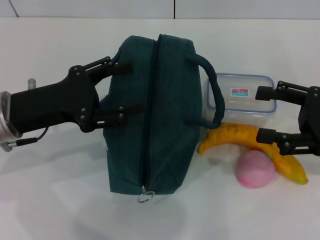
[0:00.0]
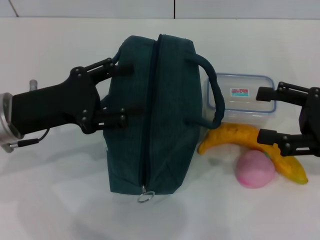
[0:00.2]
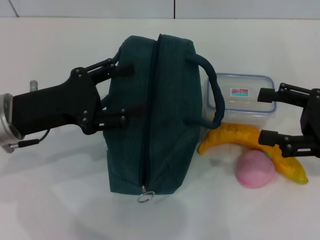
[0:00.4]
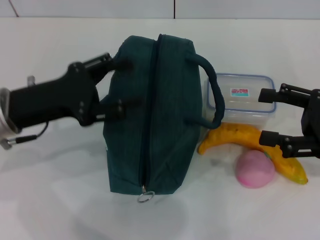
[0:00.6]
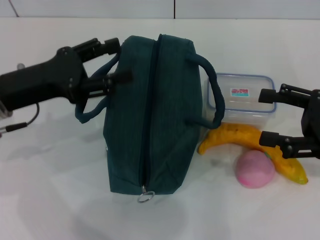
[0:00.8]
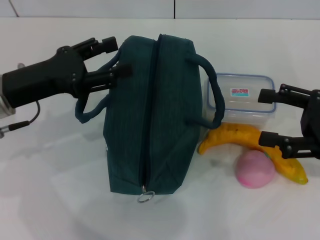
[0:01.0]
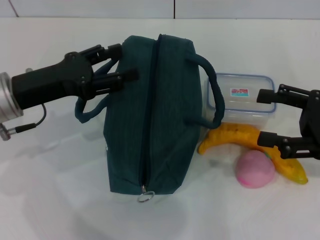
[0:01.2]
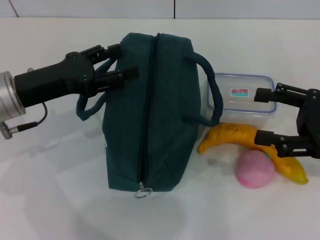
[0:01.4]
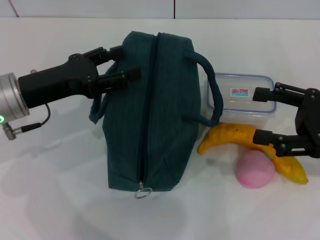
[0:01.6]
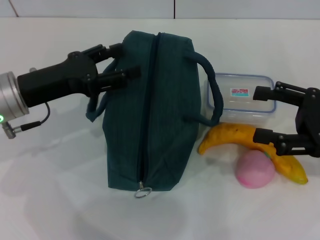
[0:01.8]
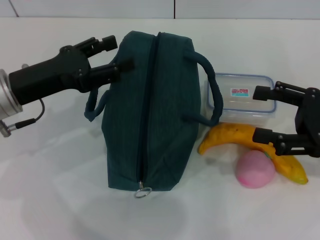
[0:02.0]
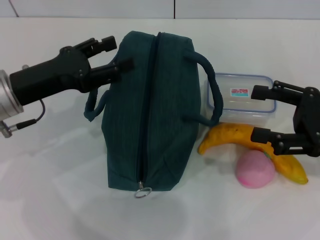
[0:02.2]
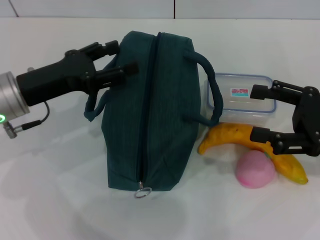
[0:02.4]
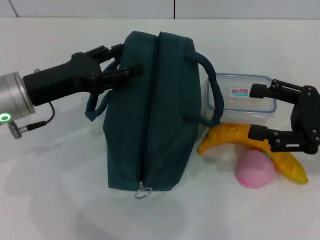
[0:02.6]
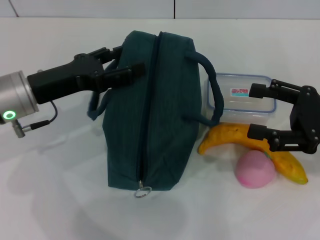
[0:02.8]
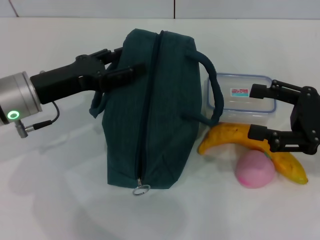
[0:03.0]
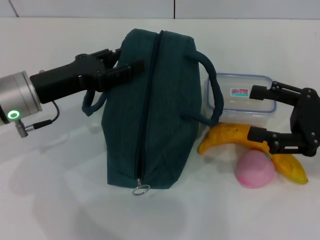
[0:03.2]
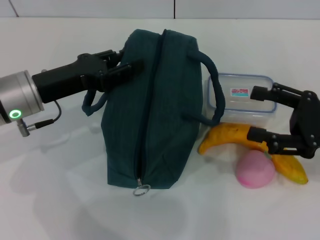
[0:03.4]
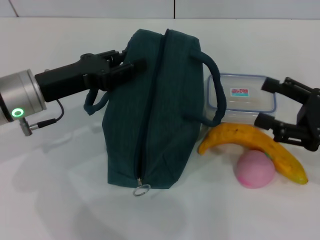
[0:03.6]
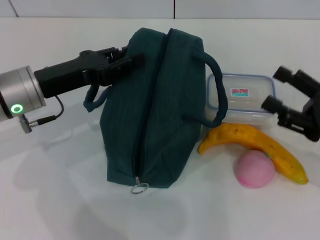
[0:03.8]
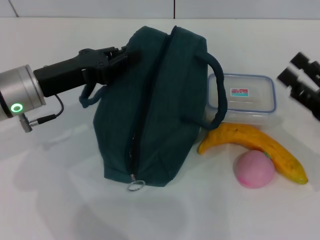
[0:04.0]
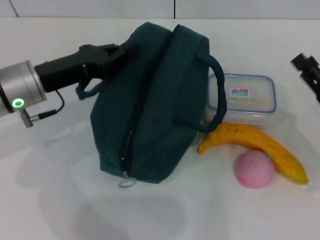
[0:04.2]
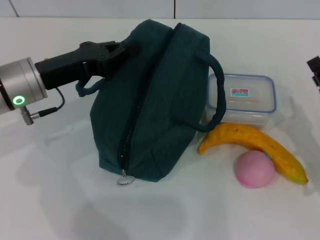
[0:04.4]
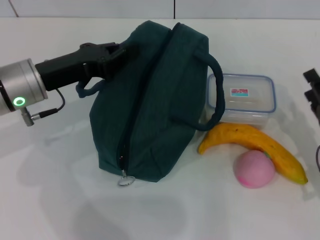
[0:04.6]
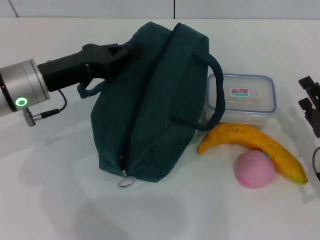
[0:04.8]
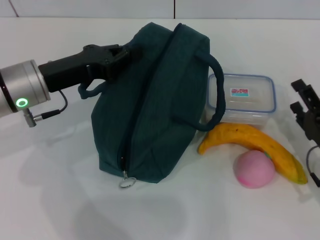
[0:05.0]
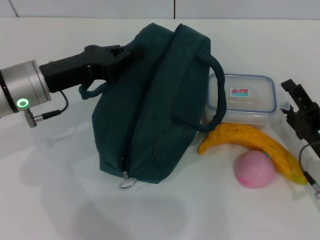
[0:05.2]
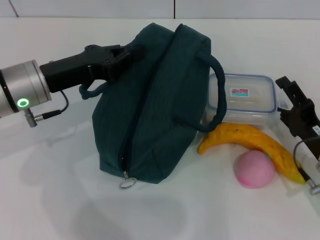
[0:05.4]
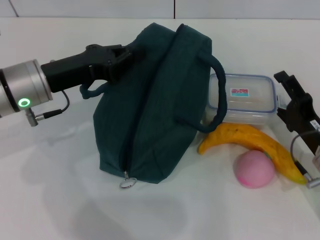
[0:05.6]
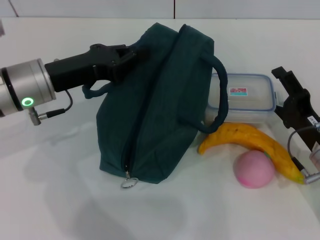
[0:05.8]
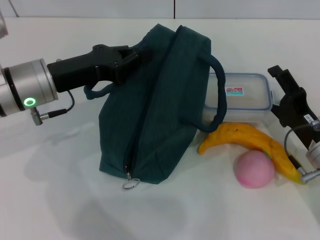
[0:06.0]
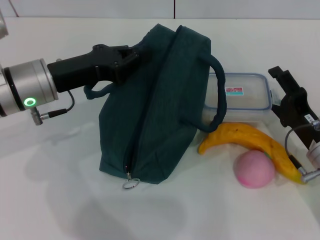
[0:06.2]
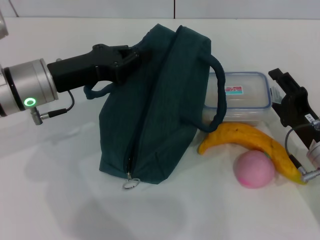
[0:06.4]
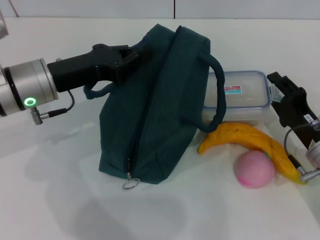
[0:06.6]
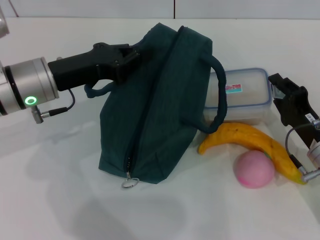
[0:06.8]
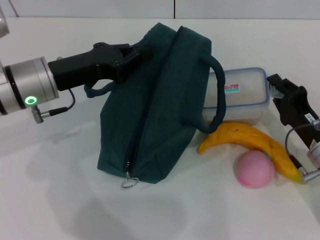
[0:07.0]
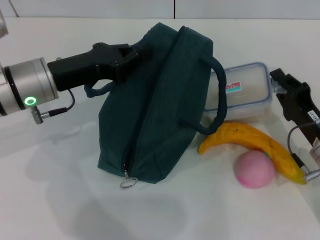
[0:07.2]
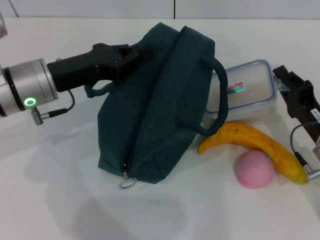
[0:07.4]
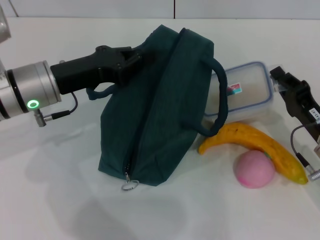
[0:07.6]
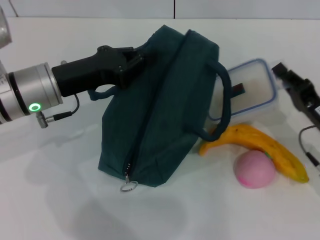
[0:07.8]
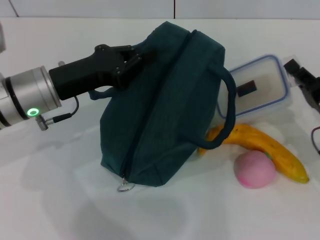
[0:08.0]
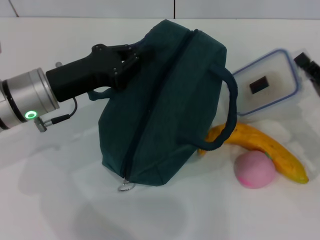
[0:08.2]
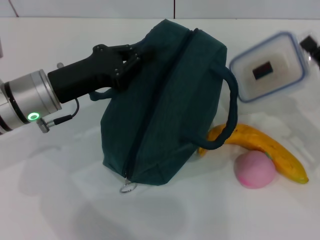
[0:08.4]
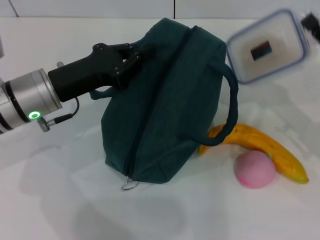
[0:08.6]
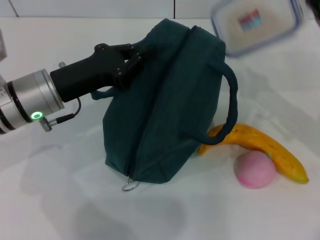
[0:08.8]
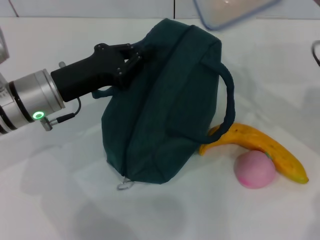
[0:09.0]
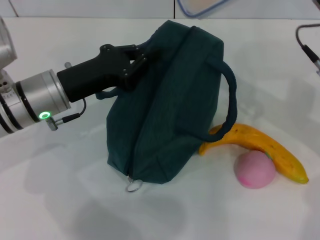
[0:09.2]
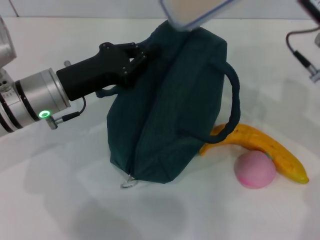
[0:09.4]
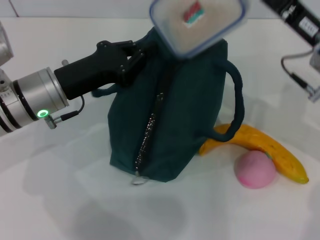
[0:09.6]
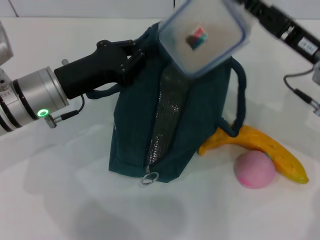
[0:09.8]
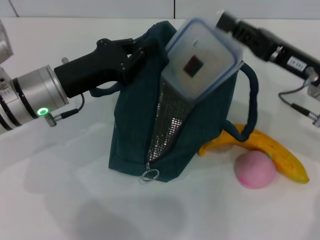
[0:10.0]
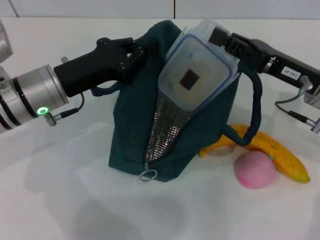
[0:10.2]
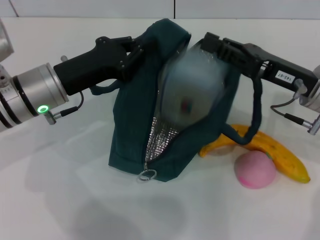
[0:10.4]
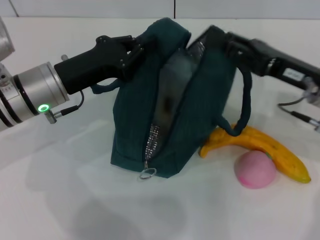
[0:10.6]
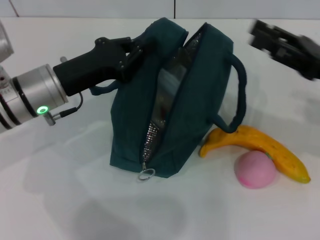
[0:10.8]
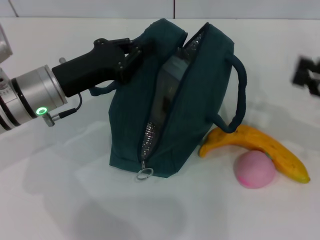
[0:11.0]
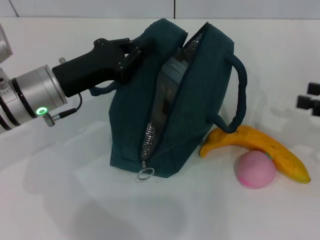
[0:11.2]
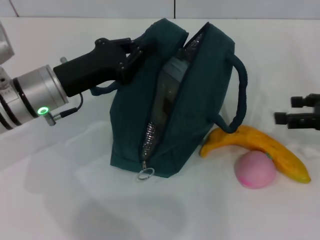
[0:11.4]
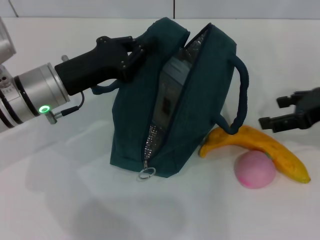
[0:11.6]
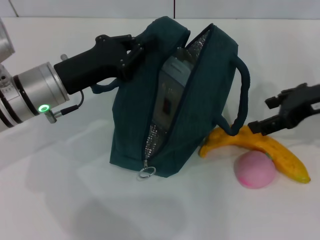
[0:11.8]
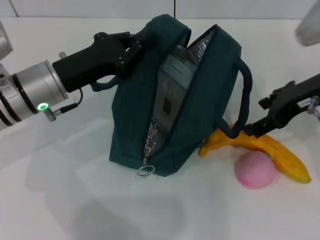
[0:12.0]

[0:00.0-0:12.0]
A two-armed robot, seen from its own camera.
Step, 0:00.0 to 0:04.2: Hold the lunch bag with your left hand.
Step, 0:04.6 to 0:07.0: Pick up the lunch box with your right hand.
Step, 0:07.2 to 0:10.6: Place the lunch box into the lunch bag with your right hand.
0:00.0 to 0:01.6: The grippers move only a little.
0:01.6 to 0:03.0: The grippers stay close to where they were, moving slightly.
0:03.0 to 0:04.4: The left gripper closes. The right gripper moves downward, roughly 10 cm.
0:06.0 to 0:07.6: The right gripper closes its fingers.
0:07.6 to 0:09.0: The right gripper goes roughly 15 cm upward and forward.
0:10.4 to 0:12.0: The right gripper travels upward by roughly 5 cm, travels to the right and back again, some 15 cm each way, and opens.

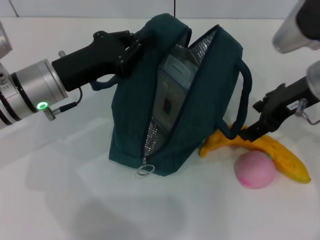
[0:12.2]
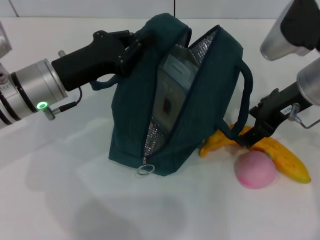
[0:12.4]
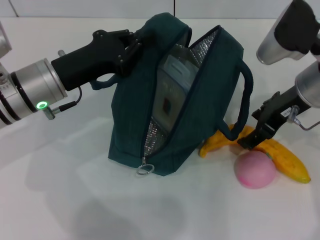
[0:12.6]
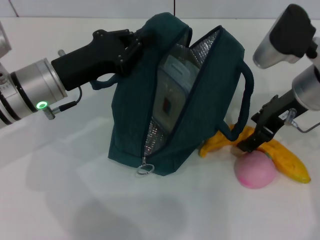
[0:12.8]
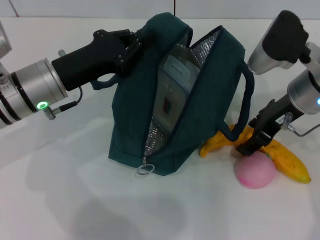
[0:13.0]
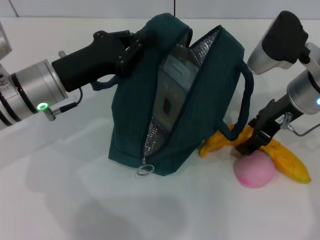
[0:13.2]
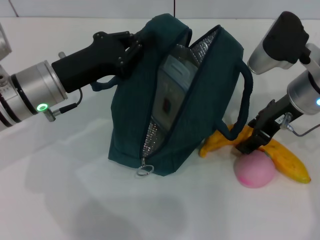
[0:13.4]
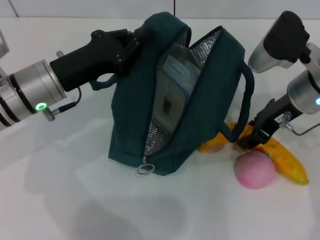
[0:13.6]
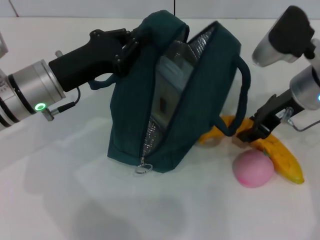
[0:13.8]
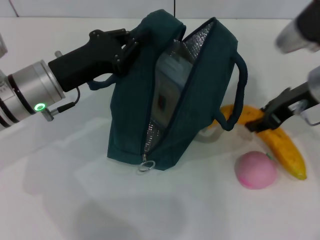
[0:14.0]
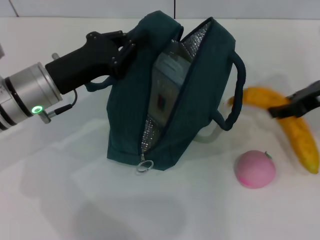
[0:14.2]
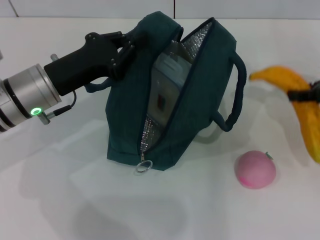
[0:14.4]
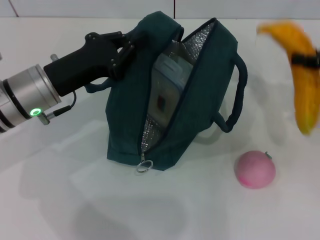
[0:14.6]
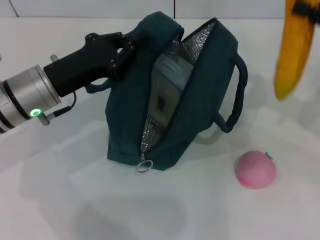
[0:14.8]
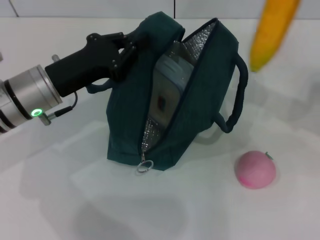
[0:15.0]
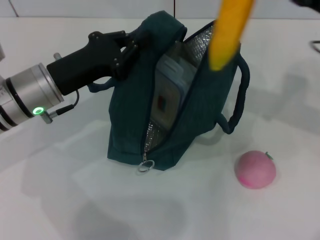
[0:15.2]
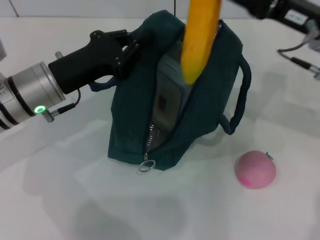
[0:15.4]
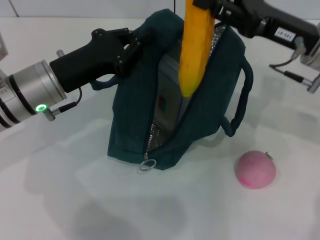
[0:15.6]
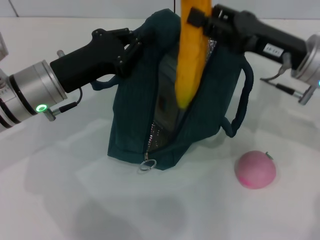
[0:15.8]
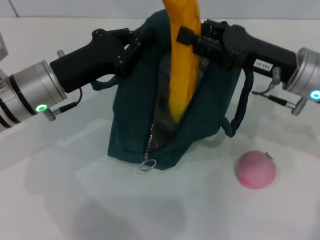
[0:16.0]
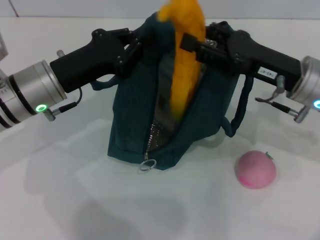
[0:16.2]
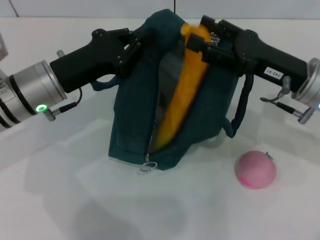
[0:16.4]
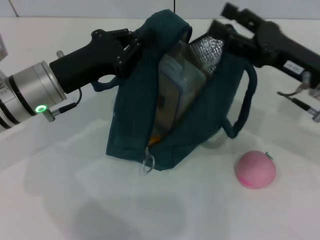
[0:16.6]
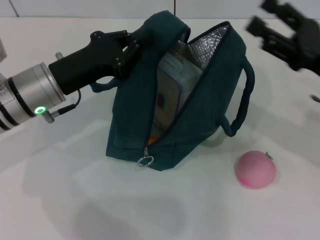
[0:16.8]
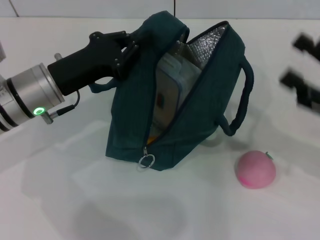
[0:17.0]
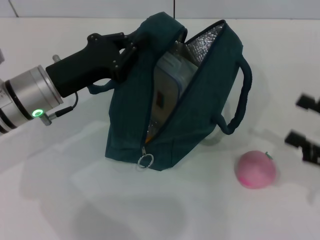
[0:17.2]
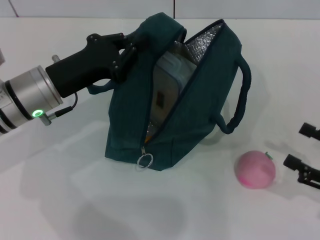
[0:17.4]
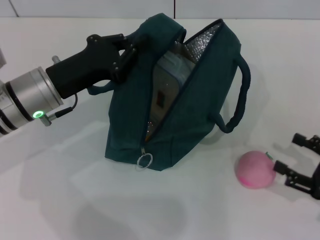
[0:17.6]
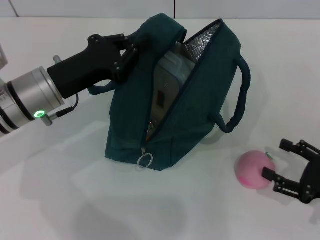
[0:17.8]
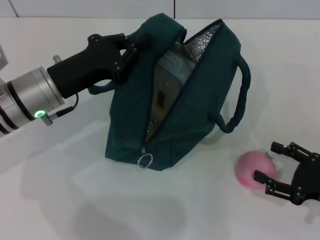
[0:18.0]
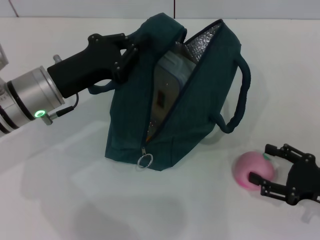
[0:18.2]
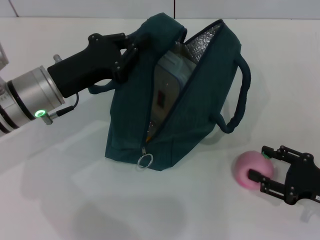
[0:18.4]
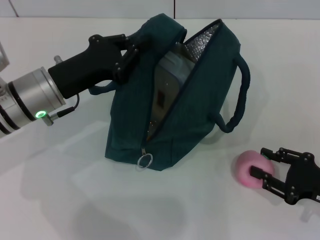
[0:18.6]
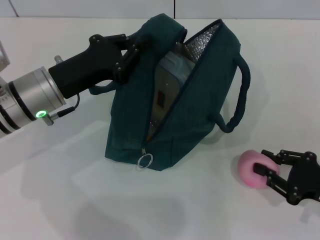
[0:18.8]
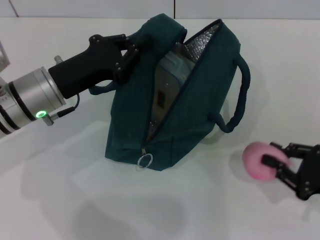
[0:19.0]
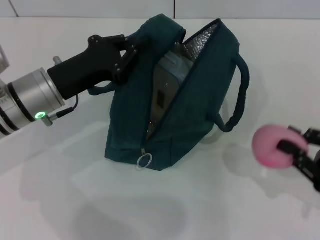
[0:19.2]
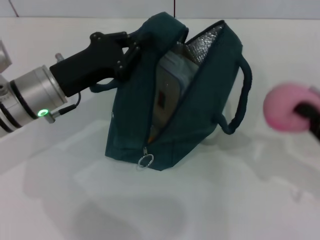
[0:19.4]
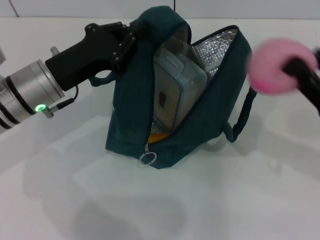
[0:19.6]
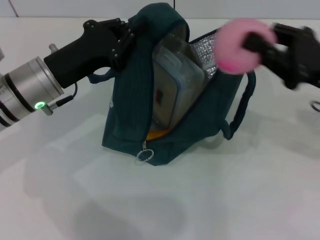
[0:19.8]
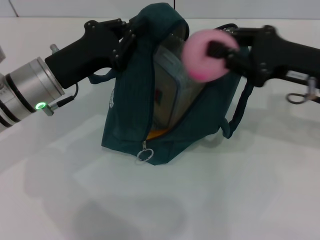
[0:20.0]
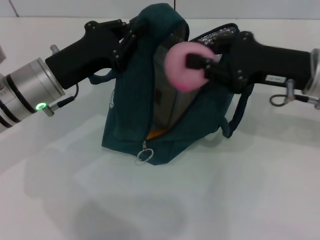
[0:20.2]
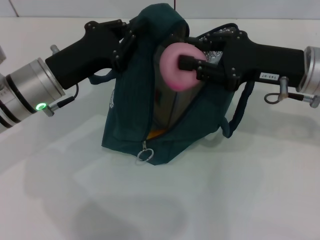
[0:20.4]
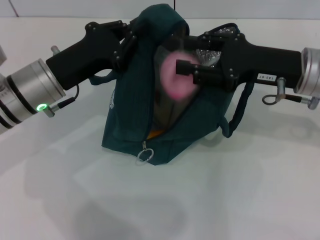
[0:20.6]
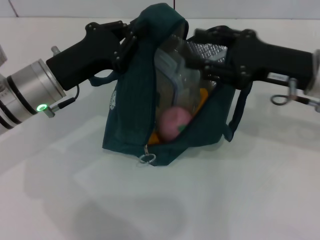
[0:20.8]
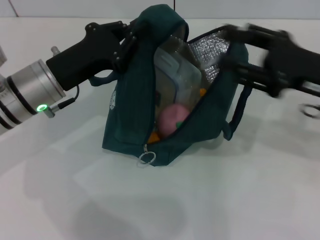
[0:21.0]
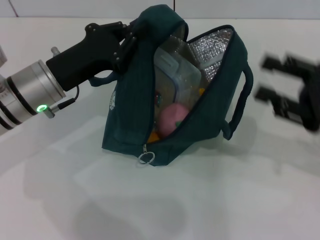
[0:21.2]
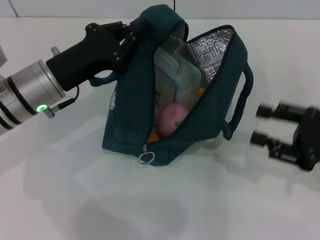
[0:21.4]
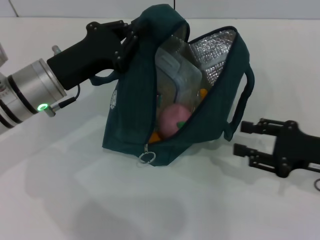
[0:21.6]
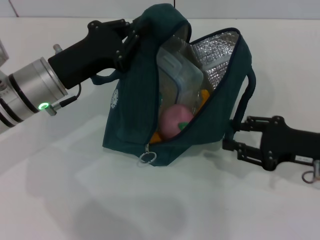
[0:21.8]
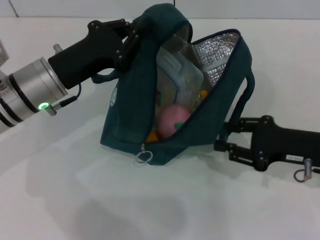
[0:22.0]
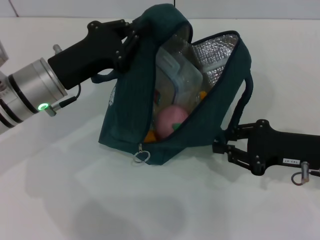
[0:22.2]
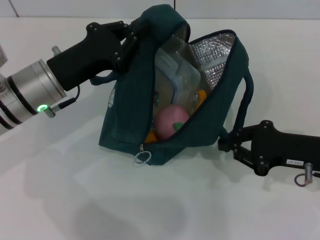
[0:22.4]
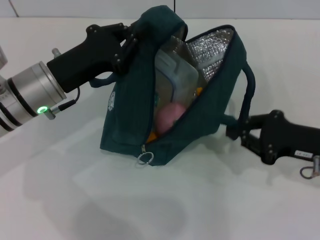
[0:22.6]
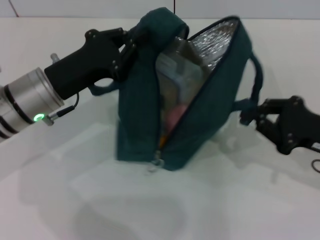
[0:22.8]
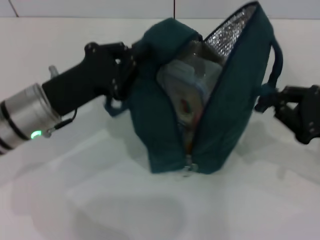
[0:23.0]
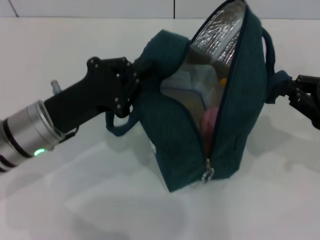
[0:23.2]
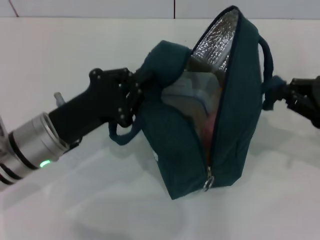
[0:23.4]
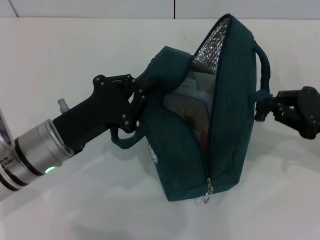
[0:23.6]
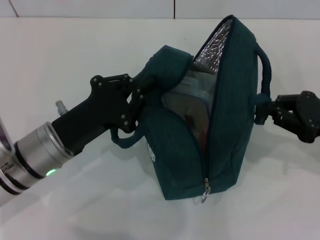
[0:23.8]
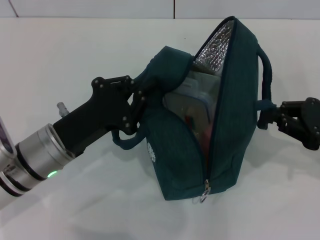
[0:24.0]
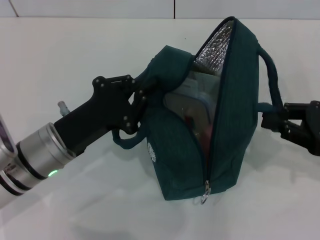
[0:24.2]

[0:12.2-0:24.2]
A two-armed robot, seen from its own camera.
Step, 0:13.6 to 0:16.4: Put the banana into the lunch bag with your right hand.
Step, 0:16.8 to 0:18.6: Grab the peach with your right hand.
0:12.2 to 0:13.8: The grippers make only small movements.
0:13.8 to 0:15.2: The right gripper shifts roughly 5 cm to the right.
0:15.2 to 0:16.6: The right gripper travels downward by roughly 5 cm, and opens its fingers.
0:16.6 to 0:18.2: The right gripper moves downward, backward and to the right, approximately 20 cm.
0:18.2 to 0:19.8: The right gripper goes some 15 cm upward and forward, and closes its fingers.
0:19.8 to 0:21.2: The right gripper moves some 5 cm to the left and comes back, and opens.
0:21.2 to 0:22.6: The right gripper moves downward, approximately 5 cm, and closes.
0:22.6 to 0:24.2: The left gripper goes approximately 5 cm backward; the right gripper changes place by approximately 5 cm.
